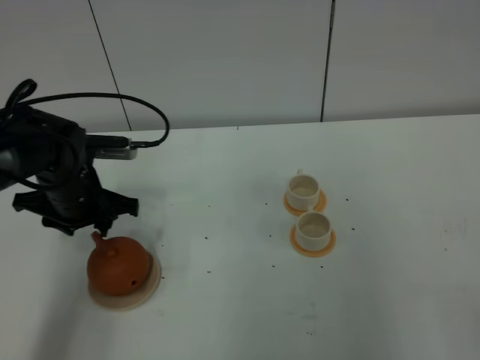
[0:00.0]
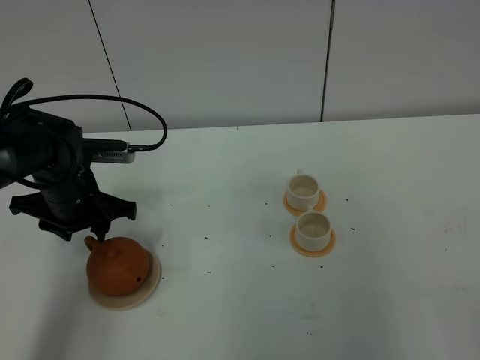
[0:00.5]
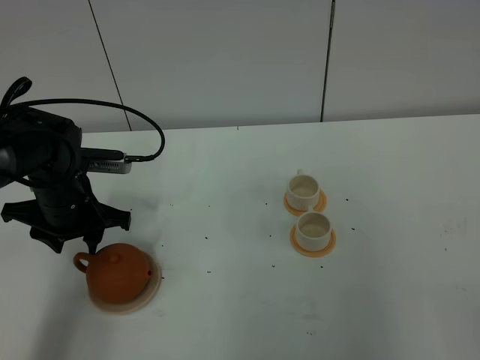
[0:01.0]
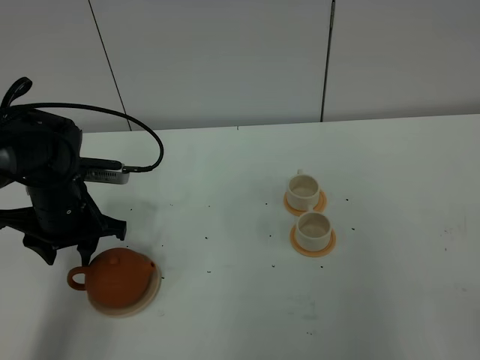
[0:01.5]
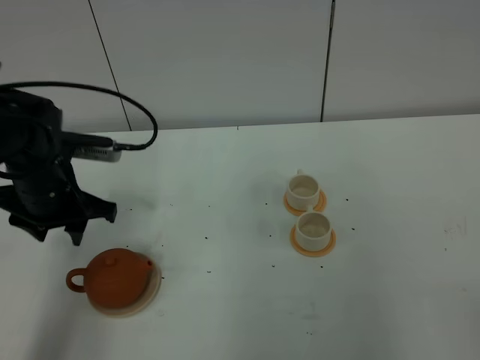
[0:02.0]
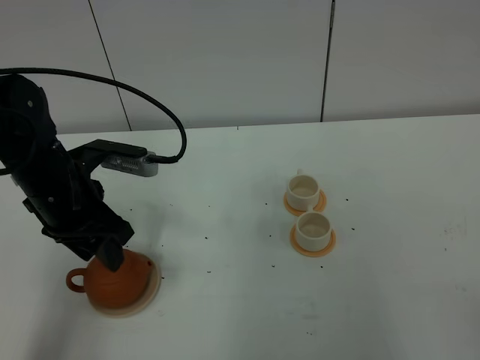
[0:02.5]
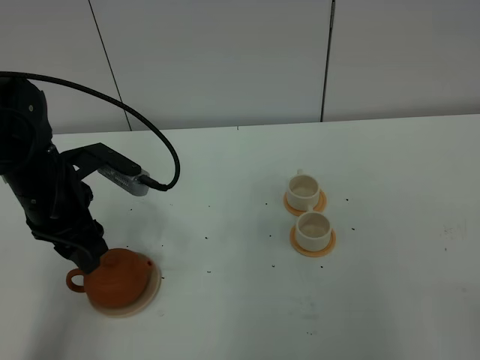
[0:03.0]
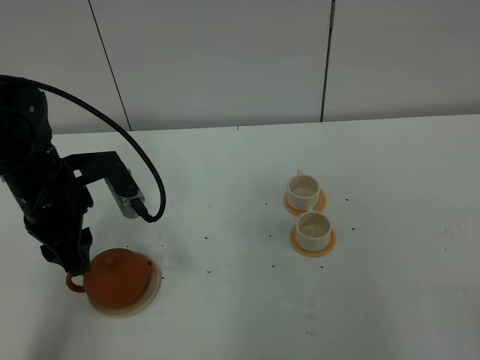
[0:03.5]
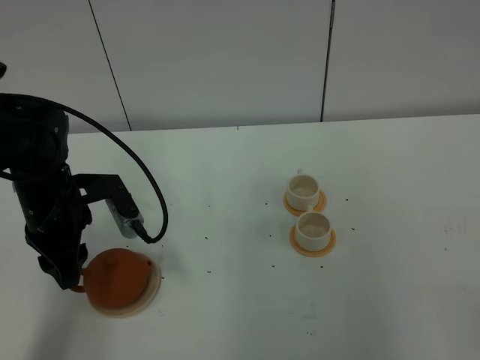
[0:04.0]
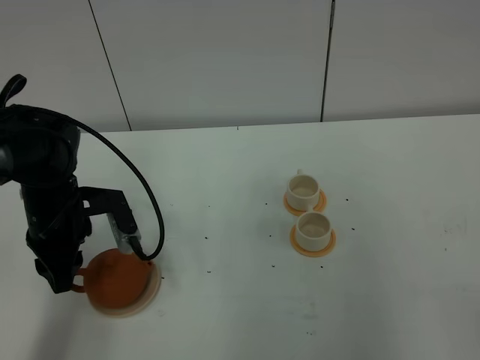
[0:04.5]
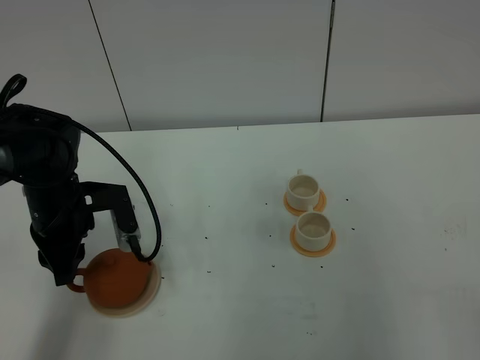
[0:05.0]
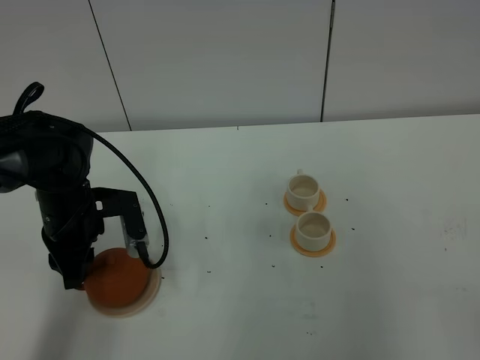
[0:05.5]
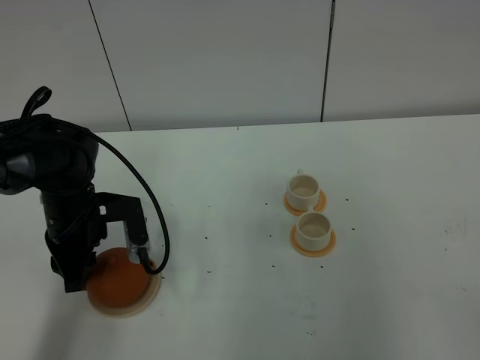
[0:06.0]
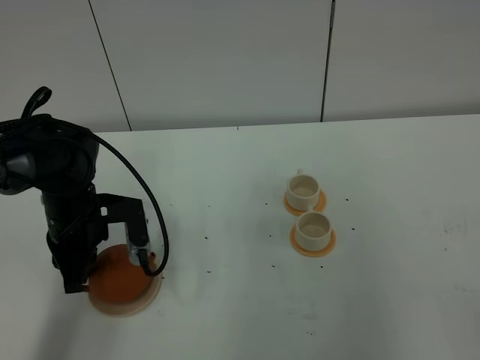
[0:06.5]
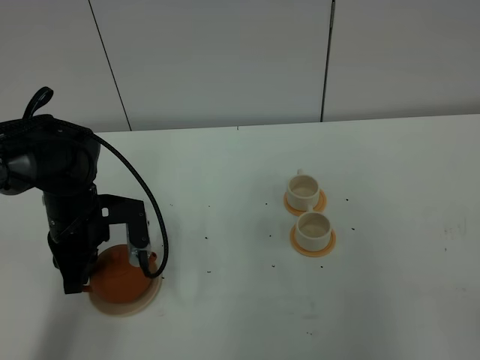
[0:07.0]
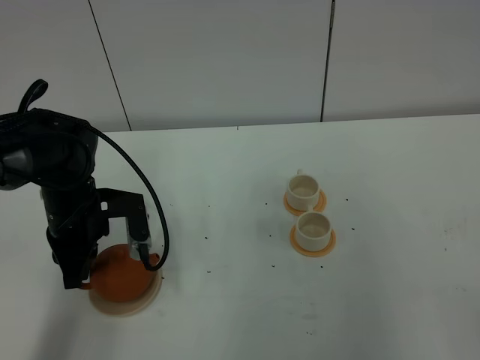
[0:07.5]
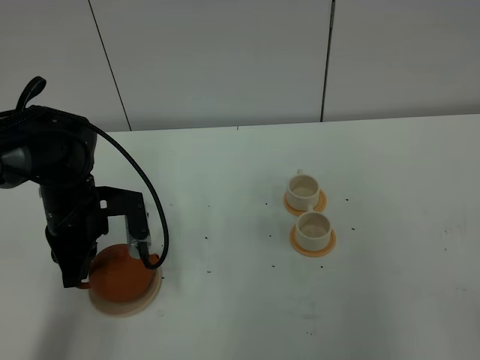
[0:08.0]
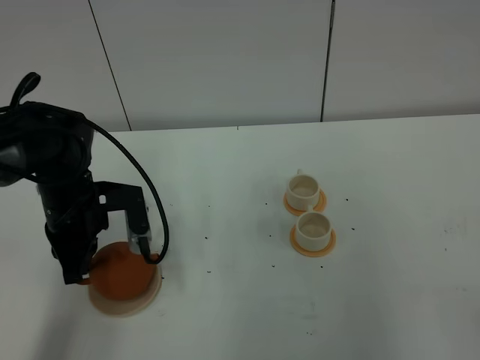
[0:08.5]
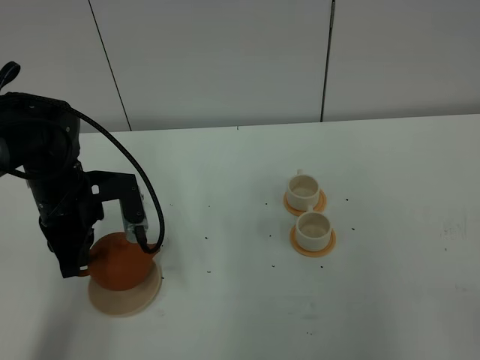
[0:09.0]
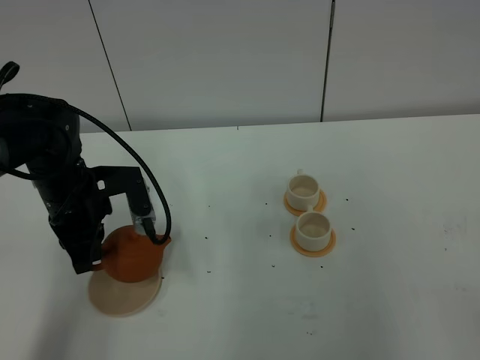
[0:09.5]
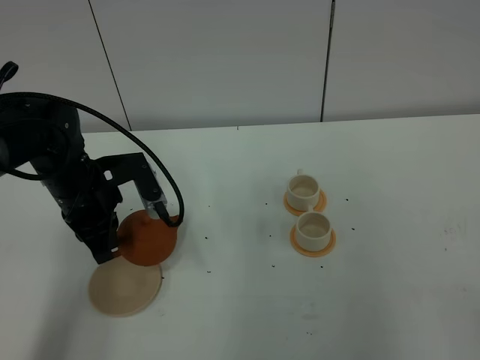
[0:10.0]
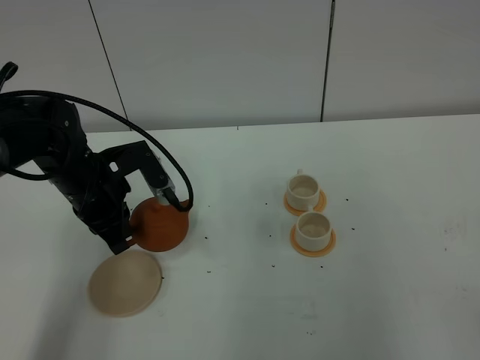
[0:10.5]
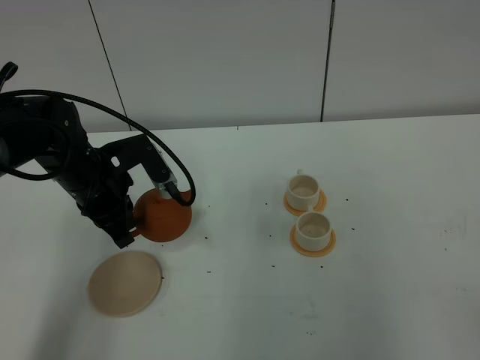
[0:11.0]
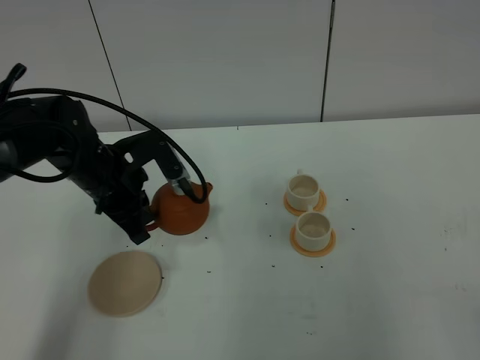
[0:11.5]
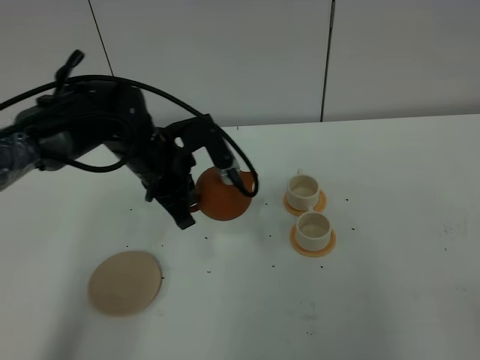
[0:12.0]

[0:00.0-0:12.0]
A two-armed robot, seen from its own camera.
Task of the whole recording: grasp the brown teapot and pour the tea into the two white teacups one by one, put the brown teapot back in its original place.
Step, 0:00.0 to 0:09.0: Pick up the teapot with the left gripper.
0:00.0 to 0:02.0: The left gripper shifts by some 5 cm.
0:04.0 to 0:06.0: The left gripper closes.
0:06.0 to 0:08.0: The left gripper closes its fingers.
0:10.0 to 0:12.0: The left gripper shifts about 10 cm to the right.

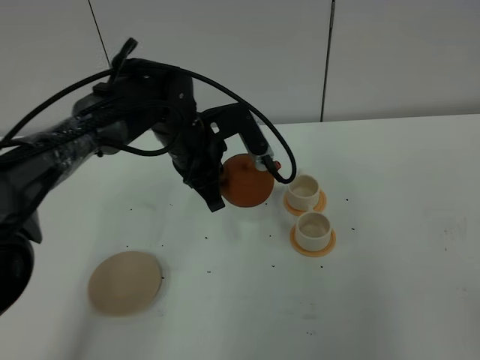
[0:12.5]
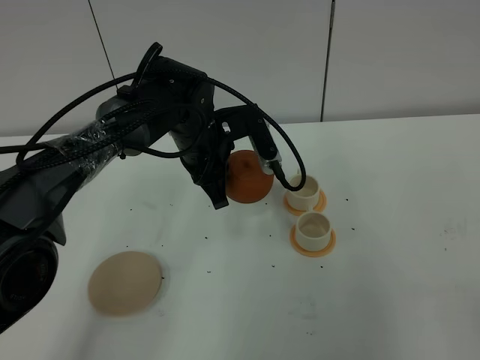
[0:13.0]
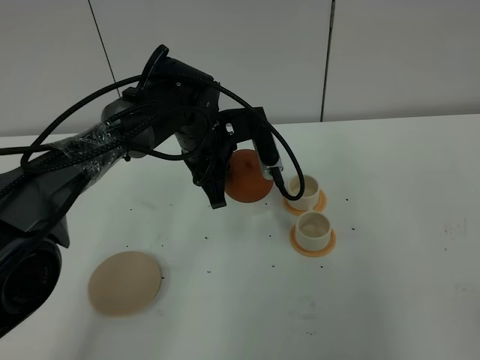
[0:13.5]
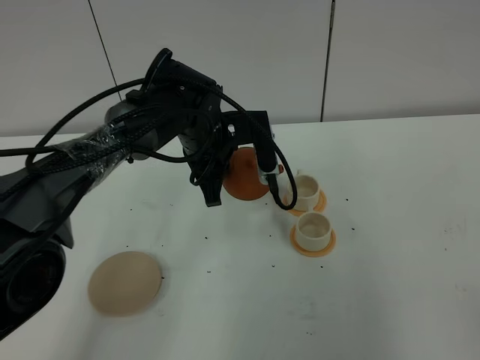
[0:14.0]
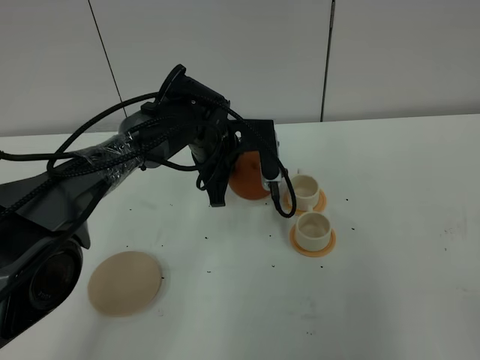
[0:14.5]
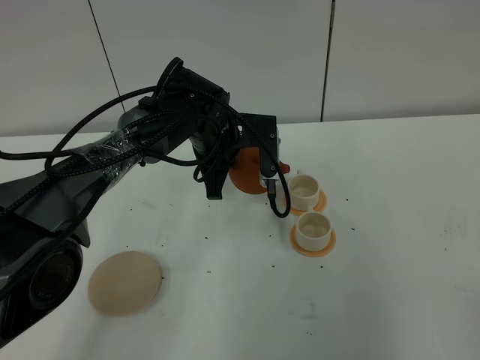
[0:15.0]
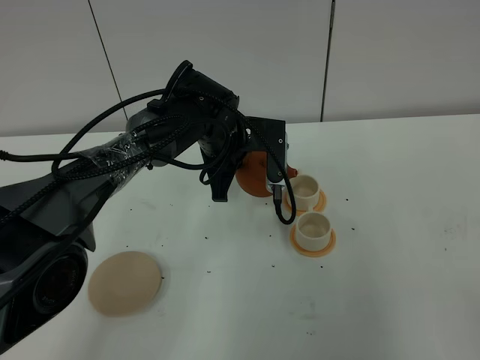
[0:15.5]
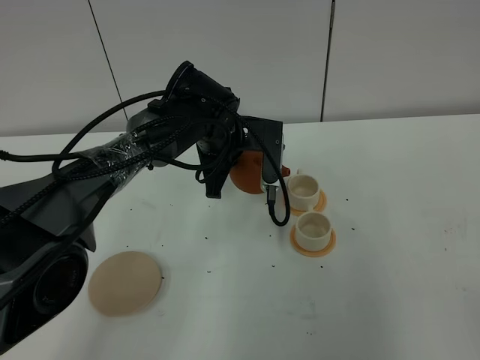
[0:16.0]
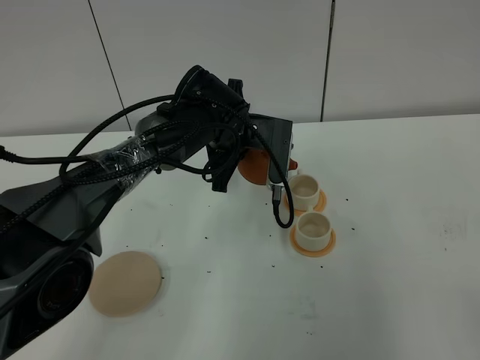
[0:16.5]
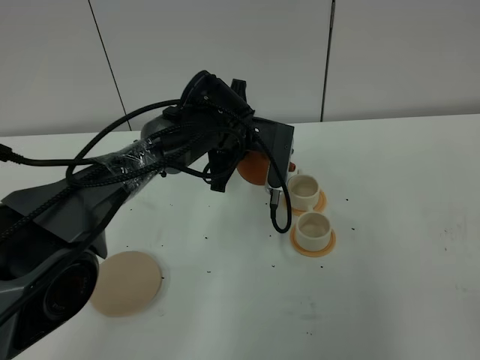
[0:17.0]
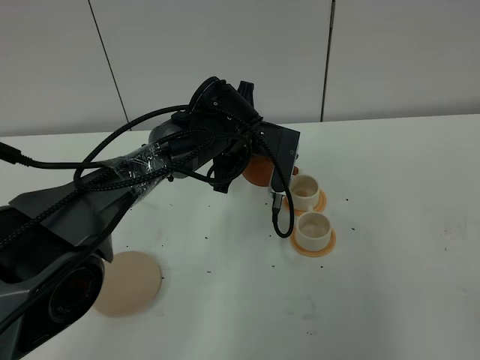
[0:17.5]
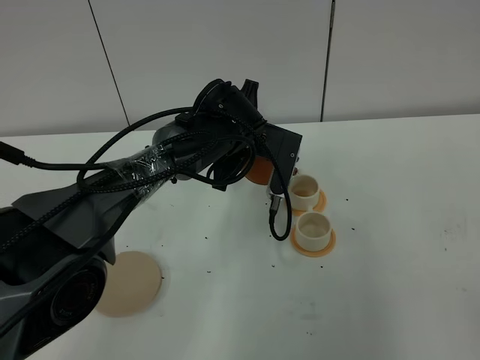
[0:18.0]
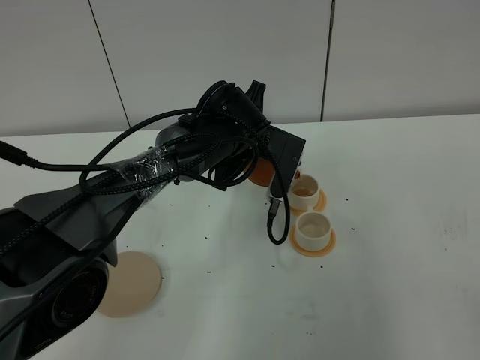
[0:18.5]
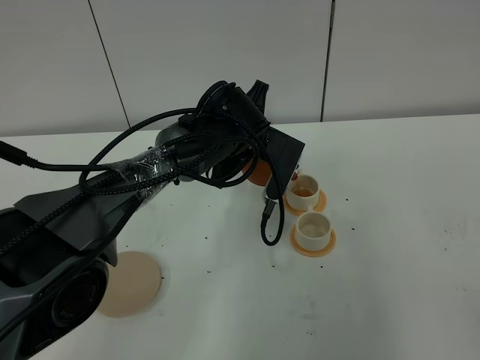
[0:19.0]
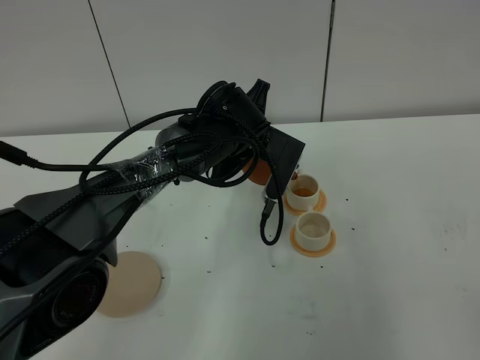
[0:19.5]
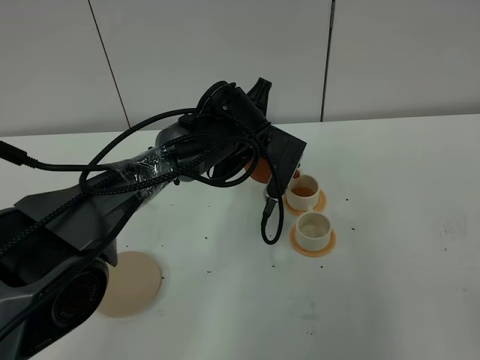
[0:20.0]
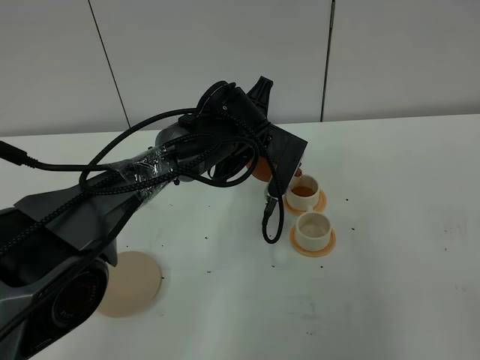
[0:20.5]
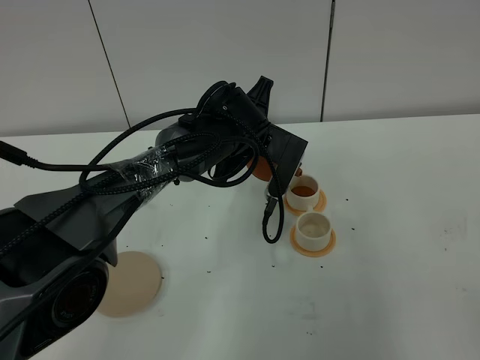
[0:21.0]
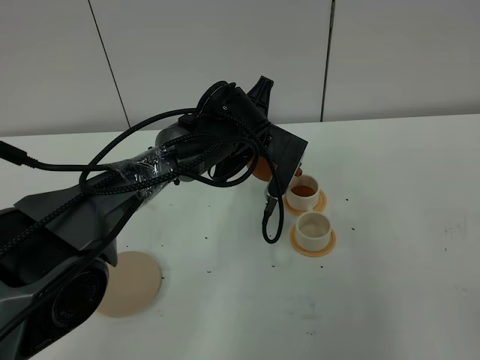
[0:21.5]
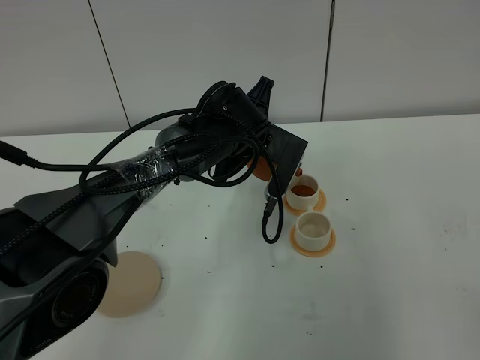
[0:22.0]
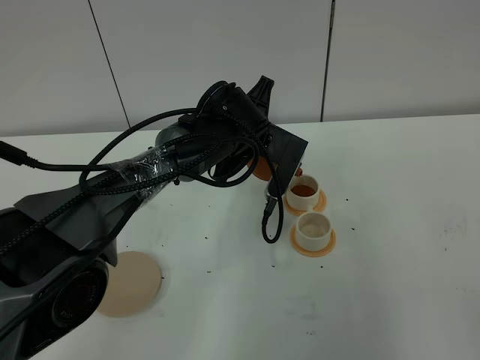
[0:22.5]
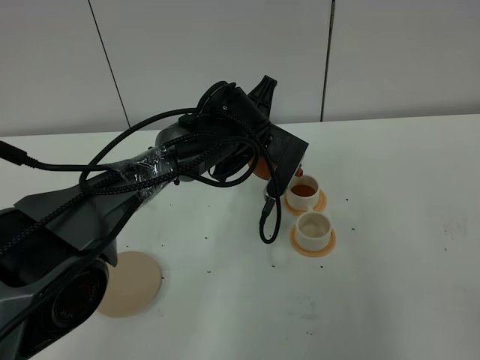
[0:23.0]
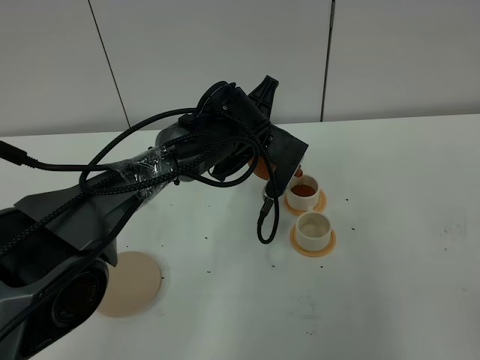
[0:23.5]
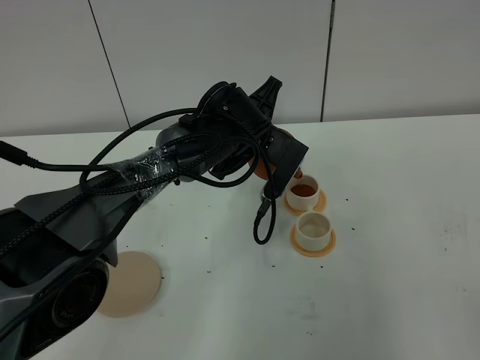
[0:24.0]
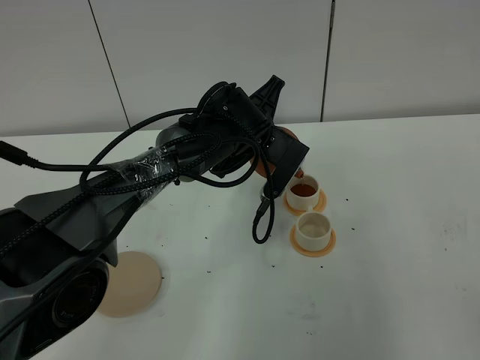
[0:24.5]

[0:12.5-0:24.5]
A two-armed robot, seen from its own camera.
Task of the whole recording: grasp the brown teapot and pour the tea into the two white teacups one by one, put the brown teapot back in its original place.
0:14.5 to 0:16.5: The grippers move only a little.
0:16.5 to 0:20.5: The grippers stay close to where they were, moving slightly.
0:20.5 to 0:22.5: The two grippers keep their place.
0:22.5 to 0:24.5: The grippers make only small movements.

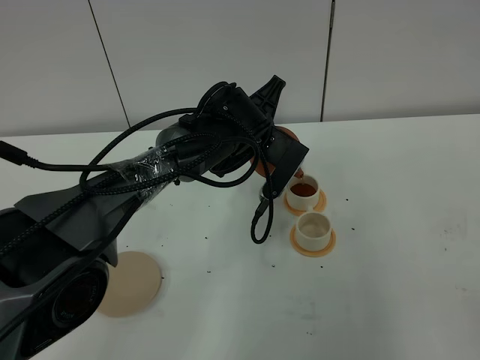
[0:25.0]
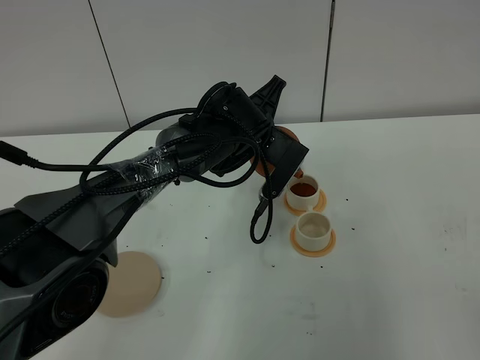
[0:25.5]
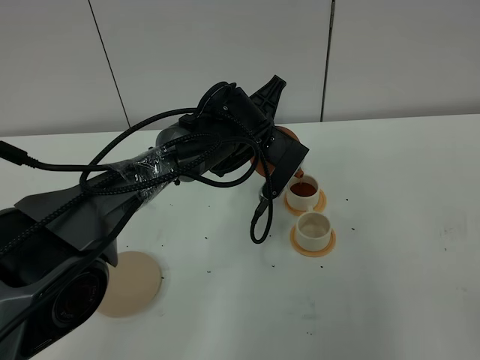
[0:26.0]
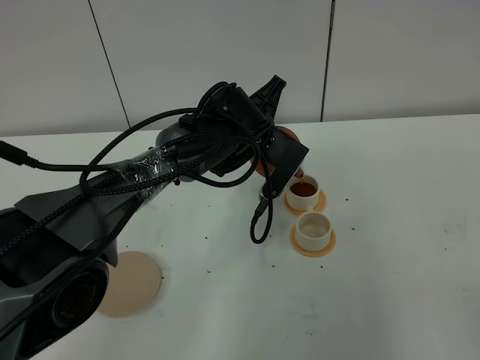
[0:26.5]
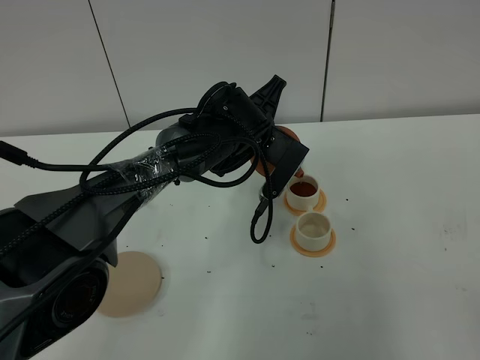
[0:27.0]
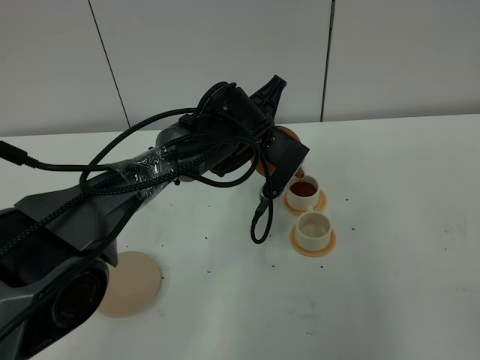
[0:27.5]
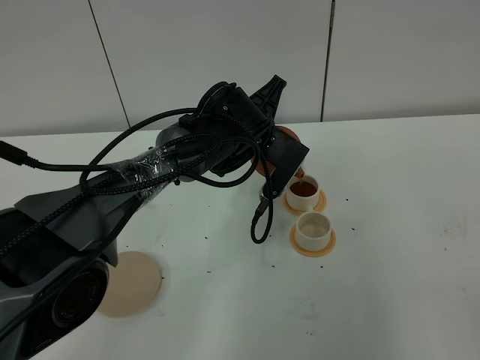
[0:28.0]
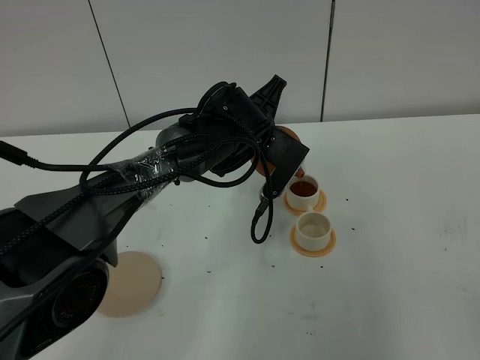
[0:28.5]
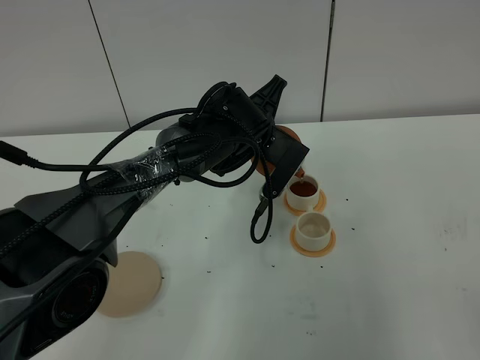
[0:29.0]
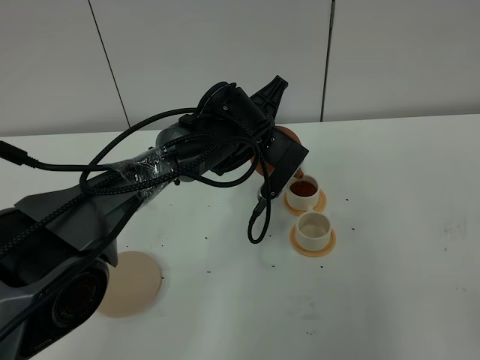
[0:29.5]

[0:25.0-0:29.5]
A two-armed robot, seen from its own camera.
Task of the whole recording: grasp the brown teapot and pour the tea into the two white teacups one by one, put the brown teapot back in its original place.
0:25.0 to 0:29.5: The two grippers keep their place.
